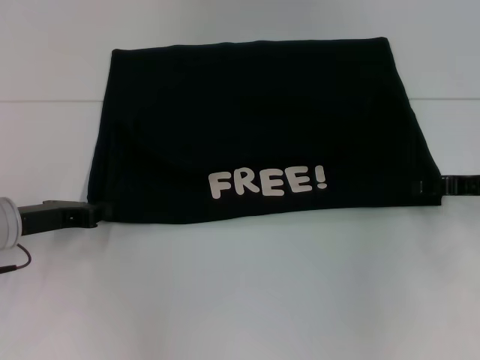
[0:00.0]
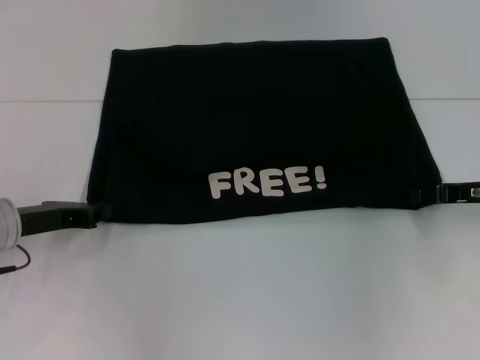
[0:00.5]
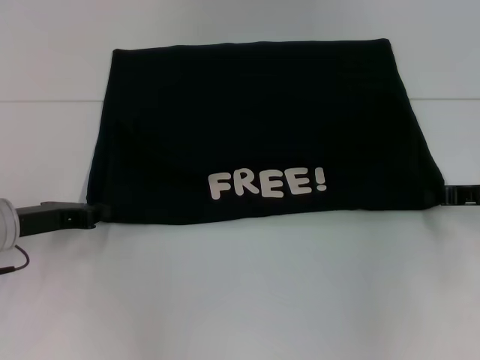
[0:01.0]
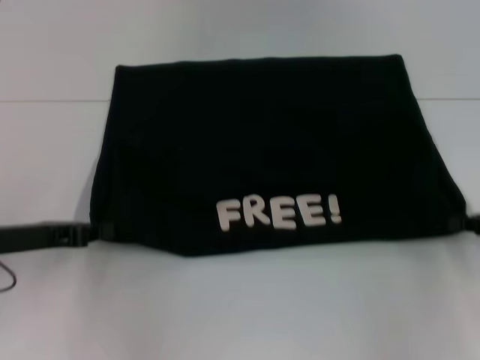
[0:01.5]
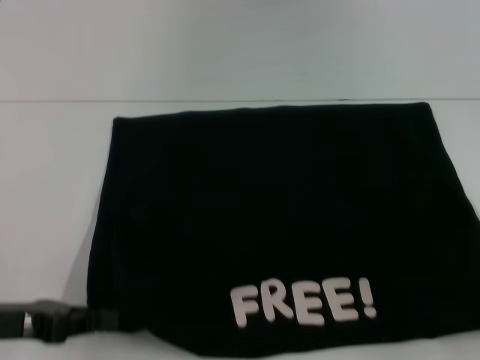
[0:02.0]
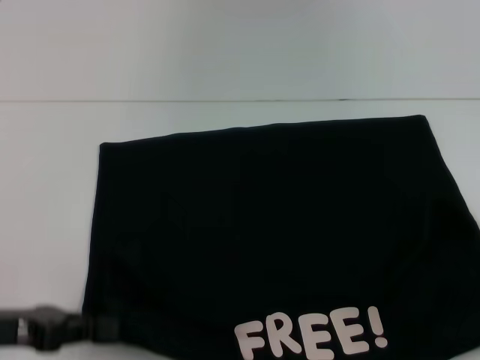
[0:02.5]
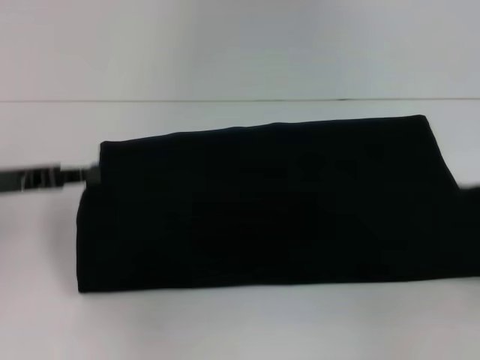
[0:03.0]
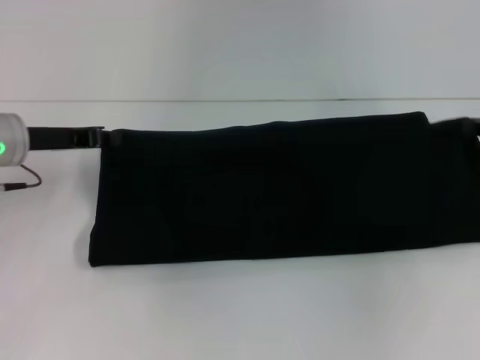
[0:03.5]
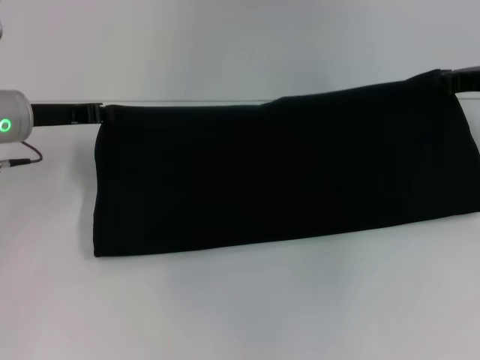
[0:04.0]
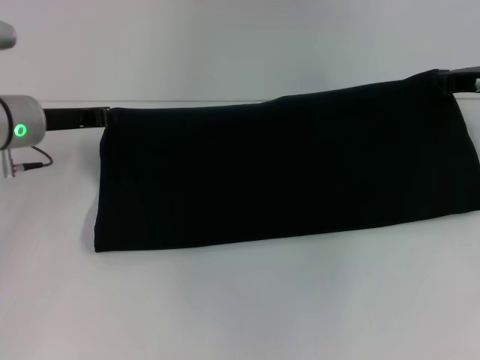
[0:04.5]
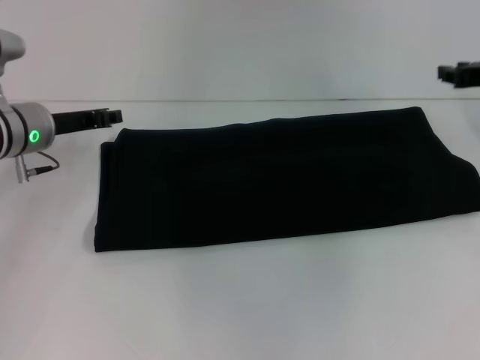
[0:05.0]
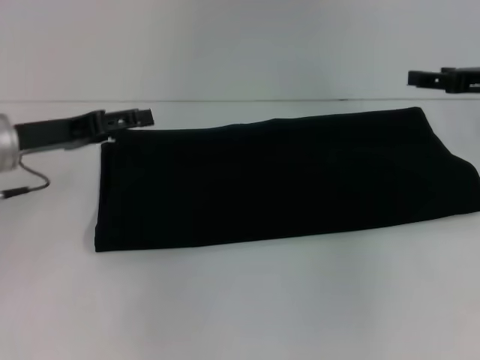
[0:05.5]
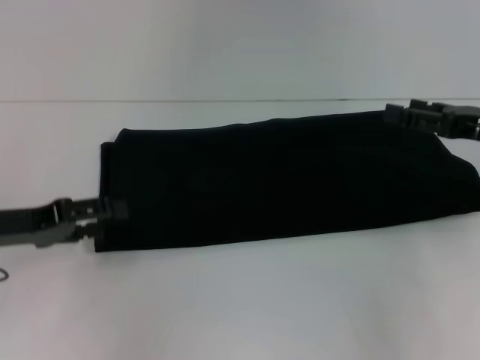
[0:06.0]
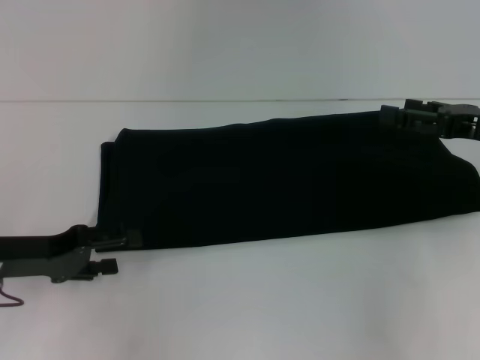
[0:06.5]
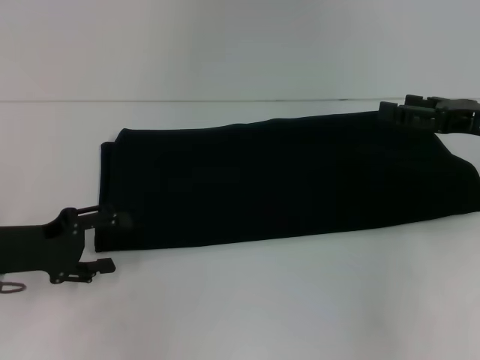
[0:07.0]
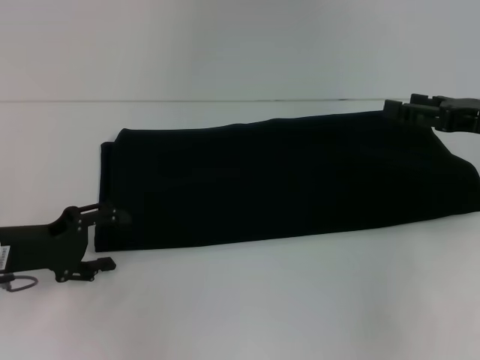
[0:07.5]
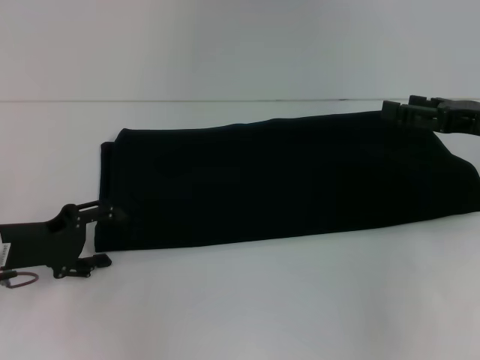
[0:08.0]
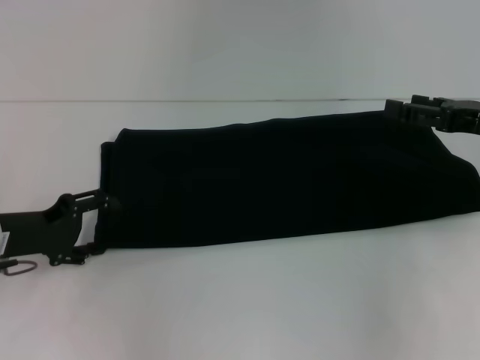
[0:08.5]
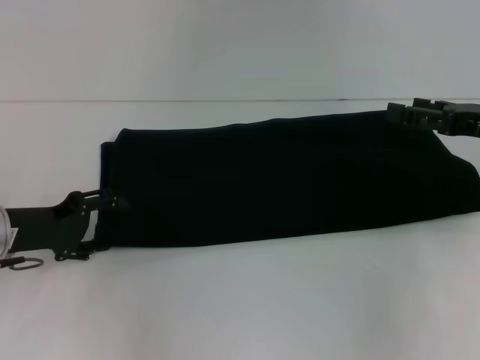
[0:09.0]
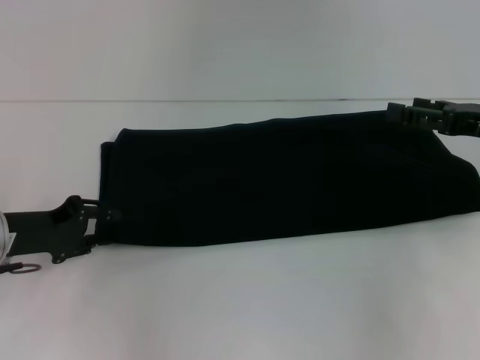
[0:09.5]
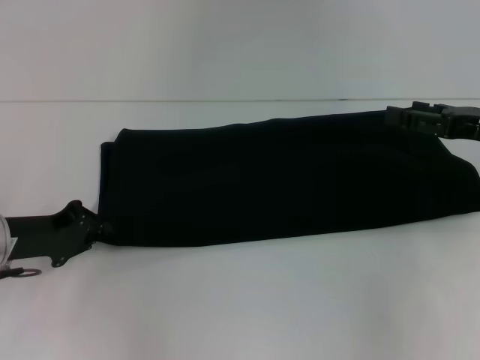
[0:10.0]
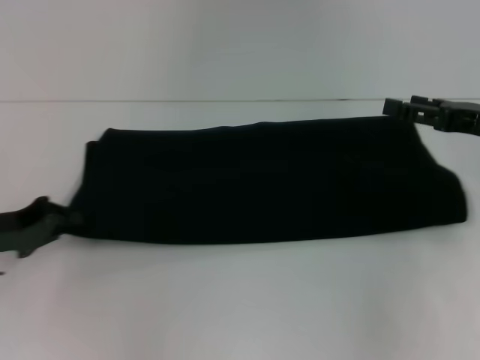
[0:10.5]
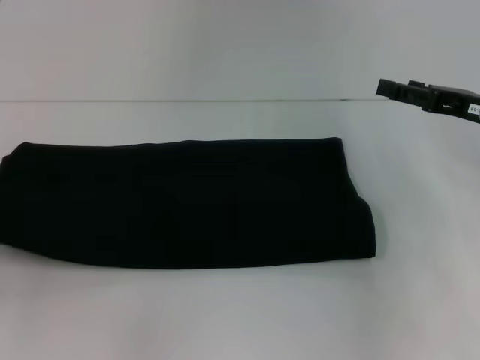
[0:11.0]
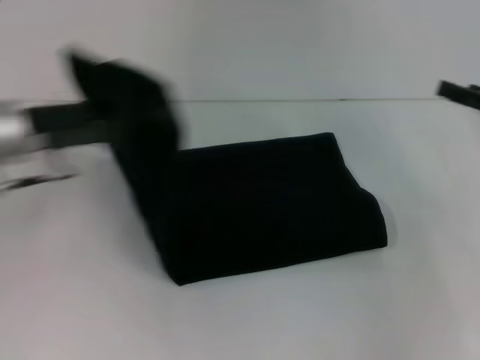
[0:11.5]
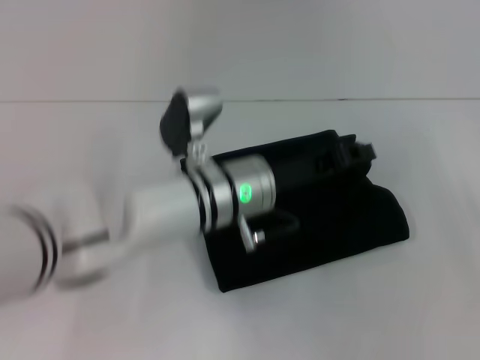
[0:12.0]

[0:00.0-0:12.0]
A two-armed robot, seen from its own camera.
Step, 0:00.0 to 0:02.0: Pull the clothes with your left hand.
Step, 0:00.0 to 0:02.0: Pull the clothes with your right hand.
Step, 0:02.5 to 0:05.0: Fold the clothes with your right hand.
0:00.0 to 0:02.0: The right gripper moves backward and to the right, about 20 cm, and closes its fingers, while the left gripper heads backward, covering approximately 10 cm.
0:02.0 to 0:04.0: The right gripper moves forward and to the left, approximately 25 cm; the left gripper shifts some 20 cm forward.
0:04.0 to 0:06.0: Both grippers travel together backward, some 10 cm. The right gripper opens up. The left gripper opens its fingers.
0:08.0 to 0:10.0: The left gripper closes up.
0:10.0 to 0:12.0: The left gripper moves to the right, roughly 25 cm. The right gripper shifts approximately 10 cm to the right.

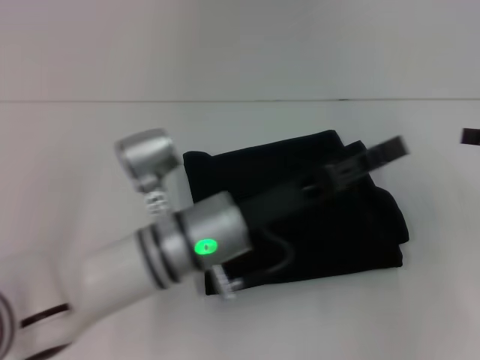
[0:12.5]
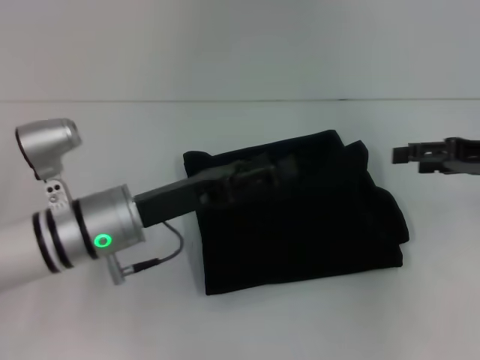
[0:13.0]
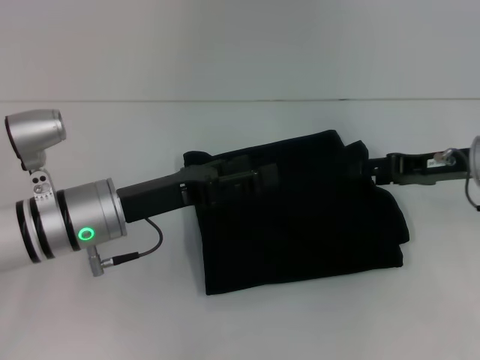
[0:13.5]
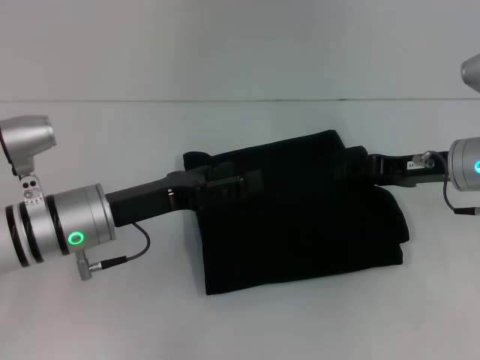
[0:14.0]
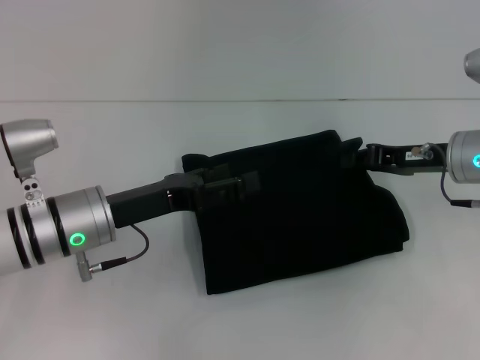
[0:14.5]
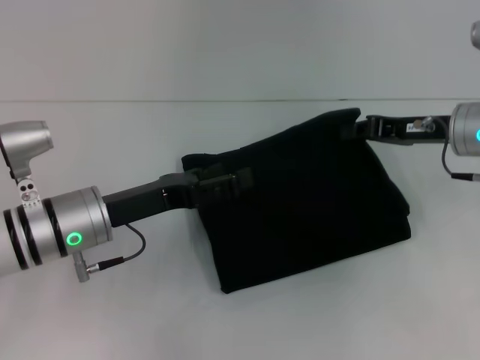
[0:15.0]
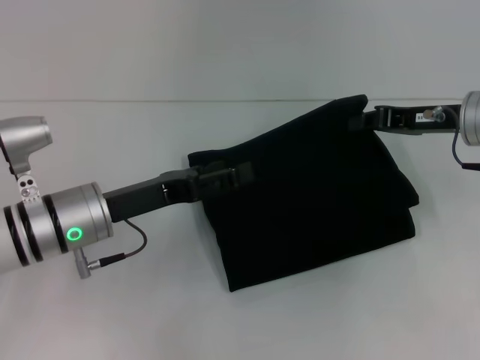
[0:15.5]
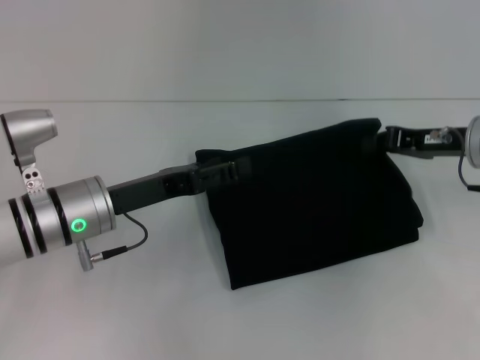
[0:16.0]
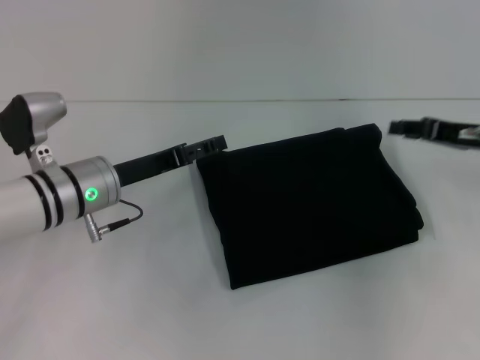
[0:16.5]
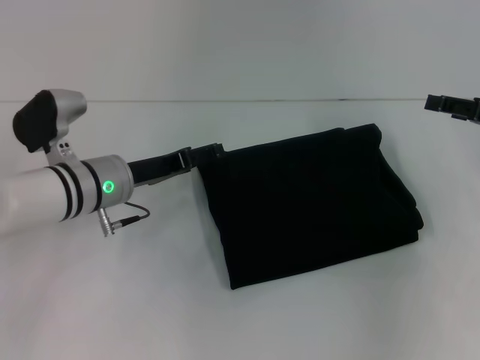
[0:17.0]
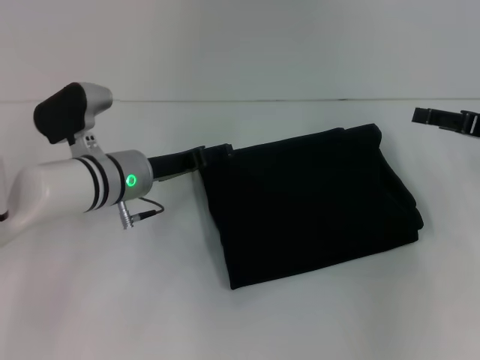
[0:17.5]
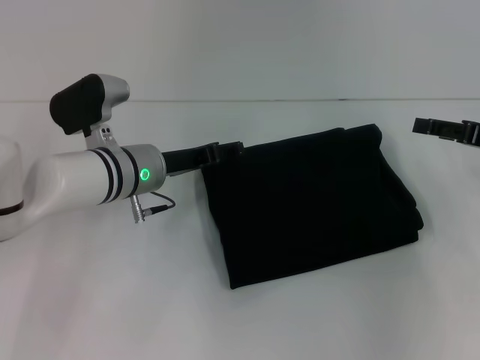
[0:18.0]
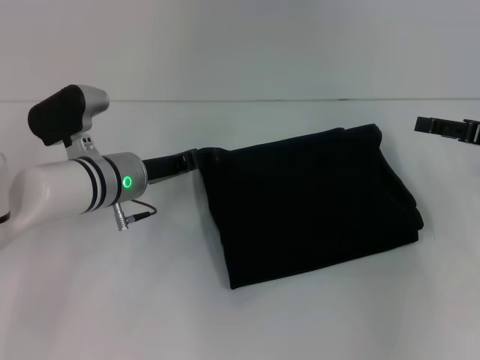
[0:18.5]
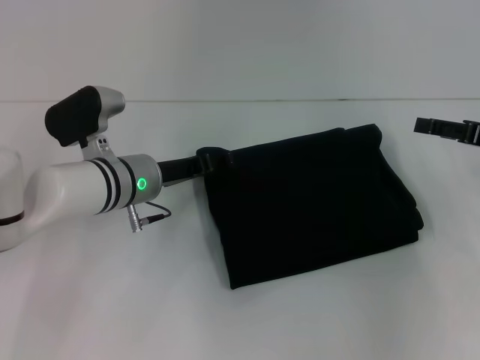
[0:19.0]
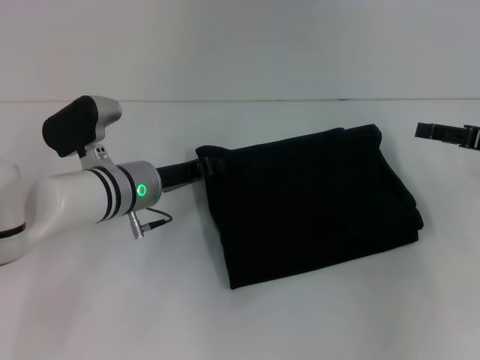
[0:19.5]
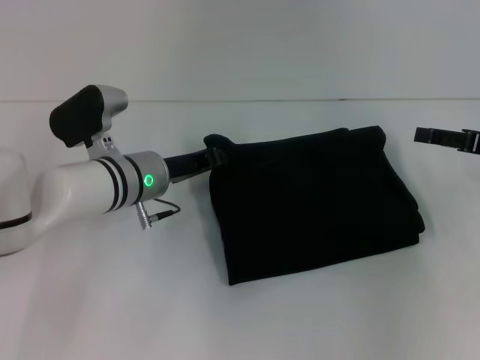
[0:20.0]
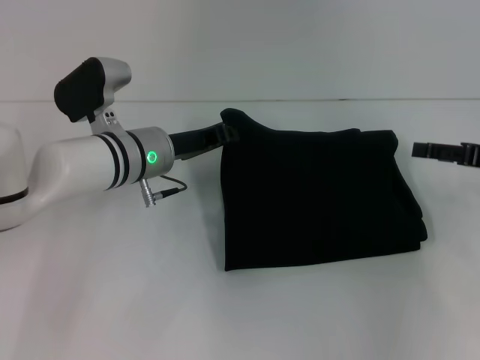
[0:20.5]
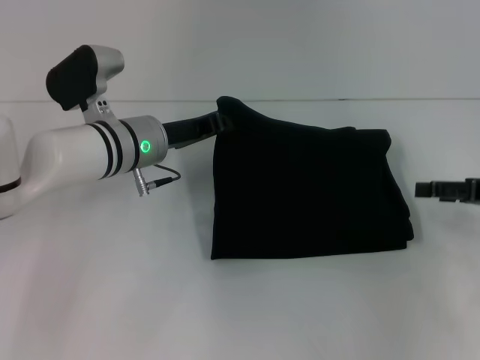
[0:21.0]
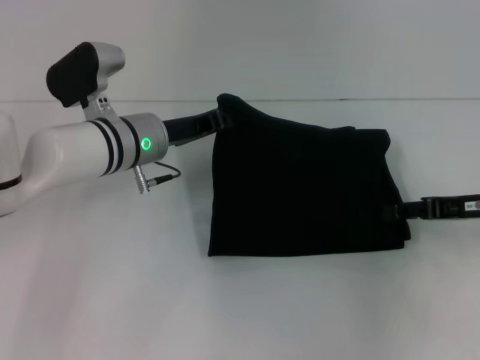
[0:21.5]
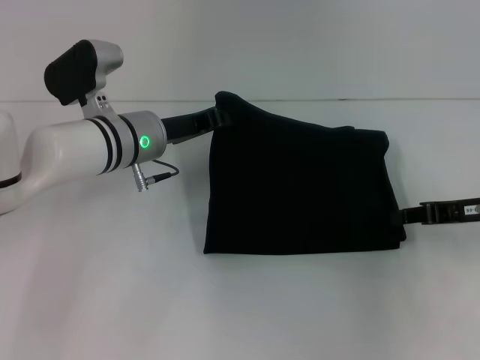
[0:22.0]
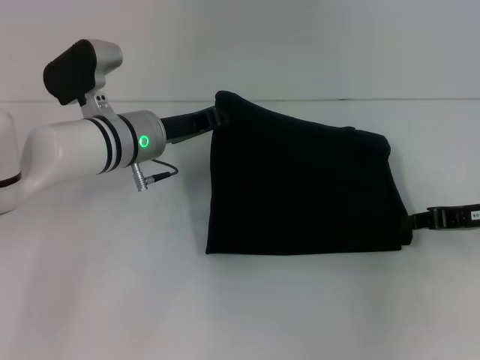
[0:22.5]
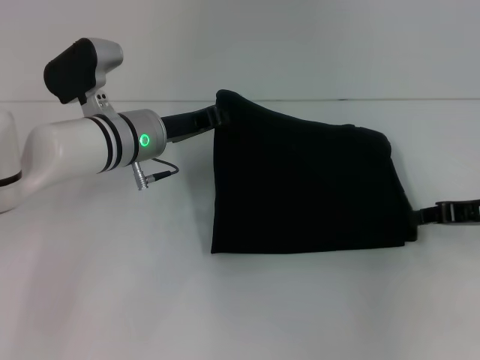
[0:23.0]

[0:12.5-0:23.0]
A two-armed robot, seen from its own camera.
0:12.5 to 0:14.5: The two grippers go some 15 cm to the left. The right gripper closes. Meanwhile the left gripper opens up.
0:14.5 to 0:16.5: The right gripper changes place by some 5 cm.
0:16.5 to 0:19.0: The right gripper opens its fingers. Meanwhile the left gripper moves some 5 cm.
0:19.0 to 0:21.0: The left gripper closes.
0:21.0 to 0:23.0: The right gripper closes.

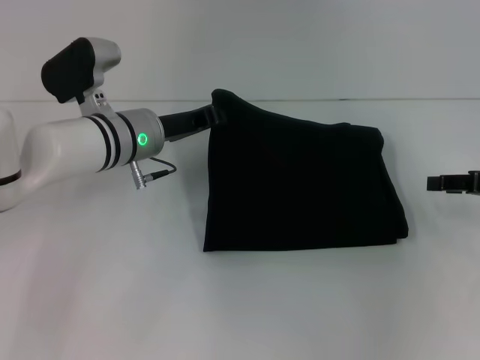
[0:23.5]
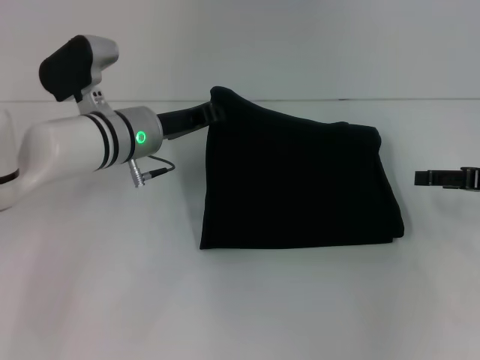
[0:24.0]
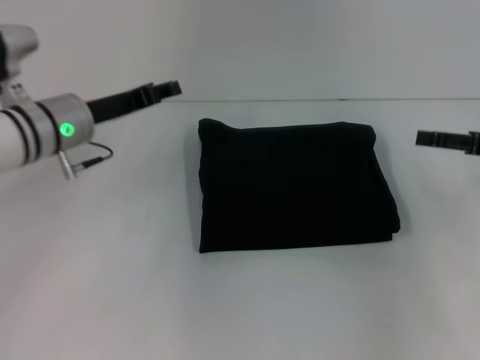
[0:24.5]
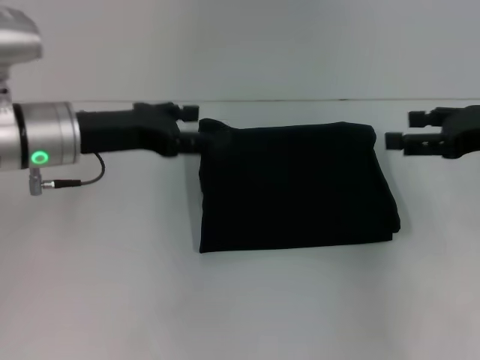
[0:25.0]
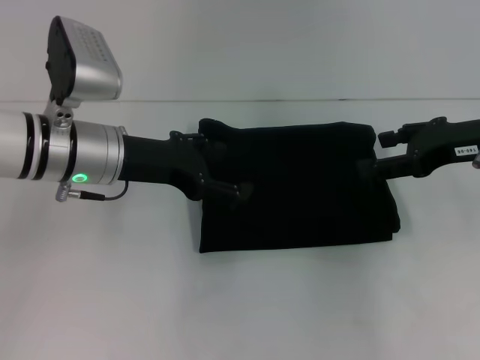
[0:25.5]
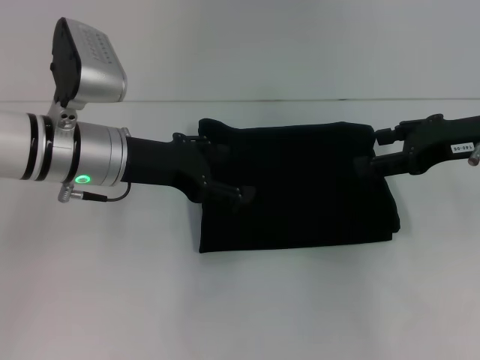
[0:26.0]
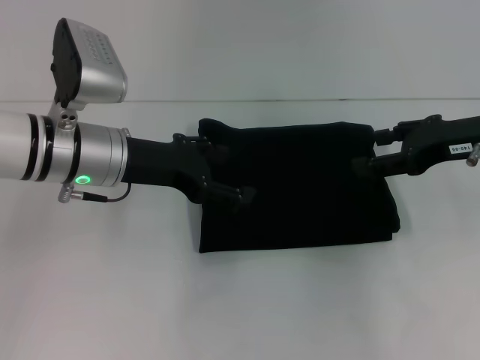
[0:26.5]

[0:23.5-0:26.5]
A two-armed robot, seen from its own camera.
0:23.5 to 0:25.0: The right gripper travels upward by approximately 5 cm, and opens up. Meanwhile the left gripper goes about 10 cm to the left, upward and backward, and opens.
0:25.0 to 0:26.5: There are only small adjustments of the grippers.
